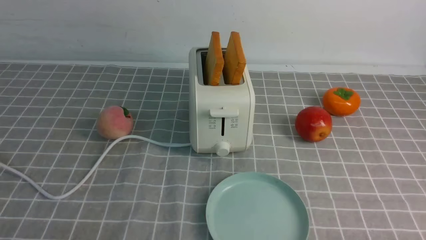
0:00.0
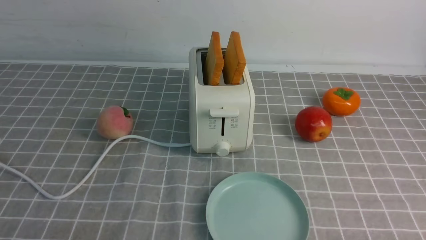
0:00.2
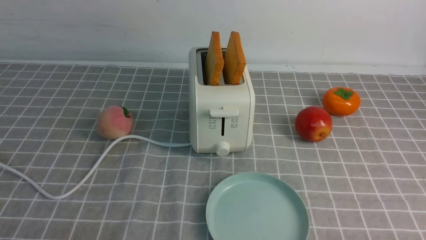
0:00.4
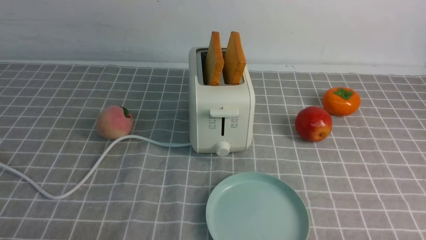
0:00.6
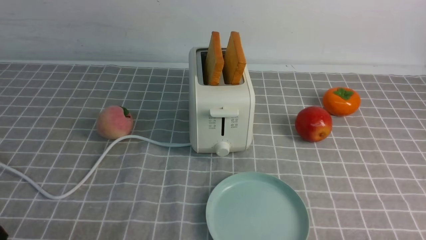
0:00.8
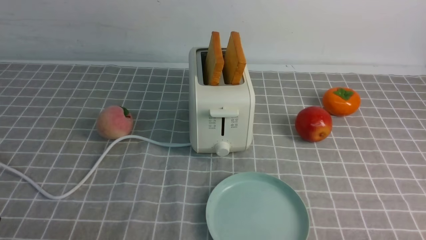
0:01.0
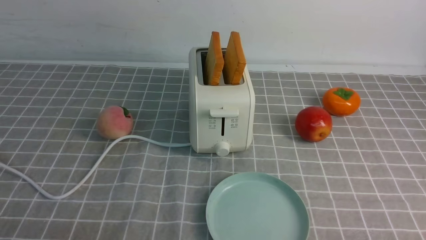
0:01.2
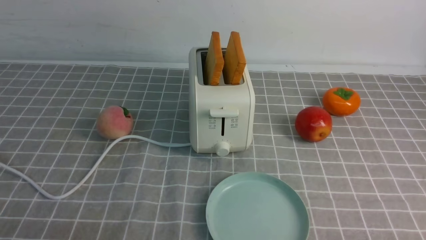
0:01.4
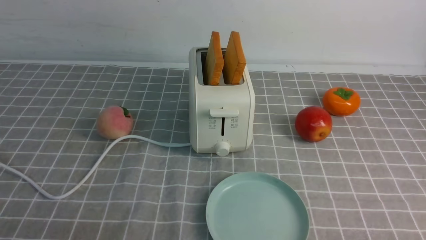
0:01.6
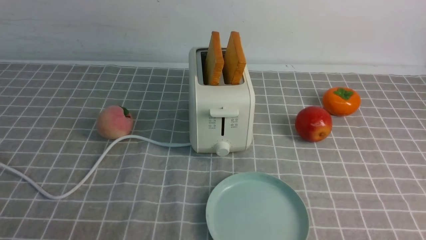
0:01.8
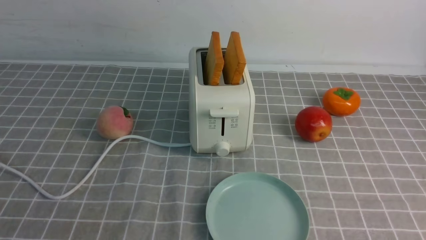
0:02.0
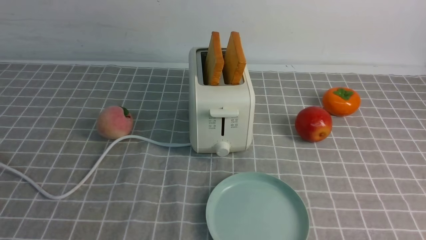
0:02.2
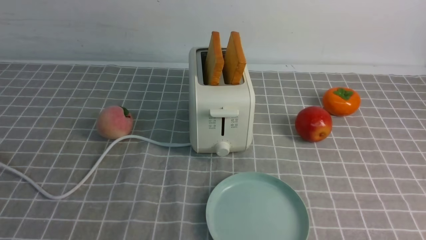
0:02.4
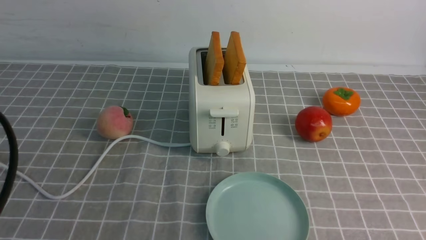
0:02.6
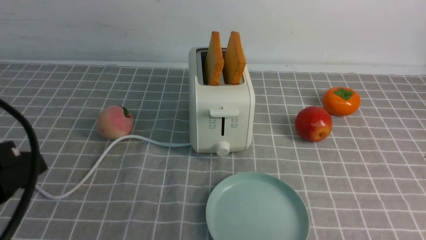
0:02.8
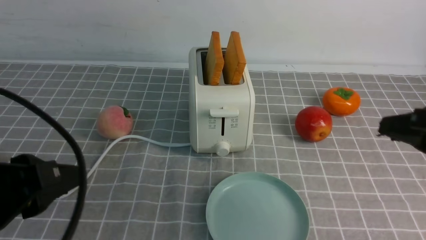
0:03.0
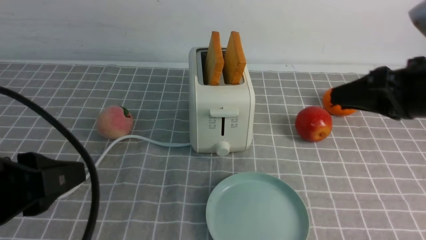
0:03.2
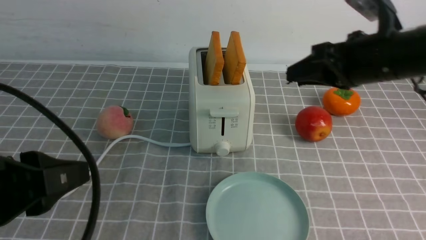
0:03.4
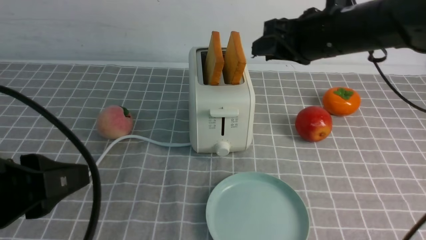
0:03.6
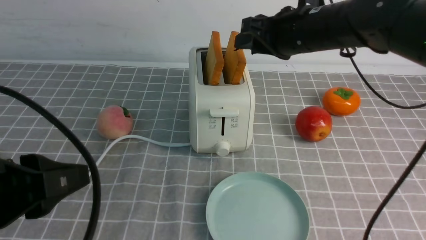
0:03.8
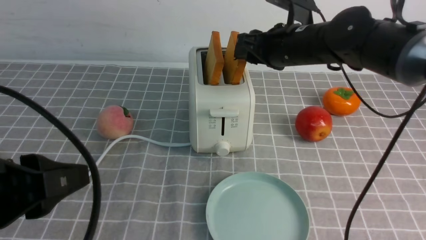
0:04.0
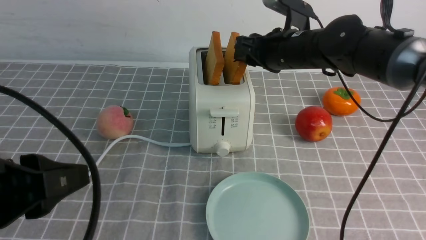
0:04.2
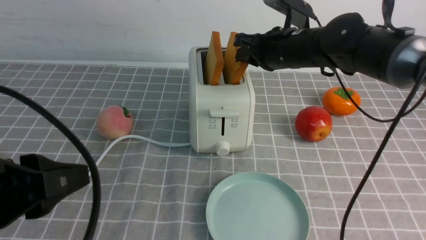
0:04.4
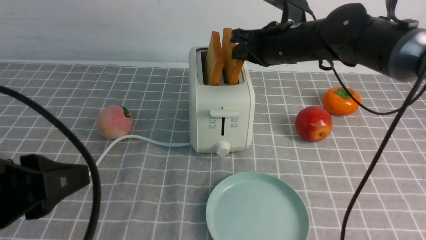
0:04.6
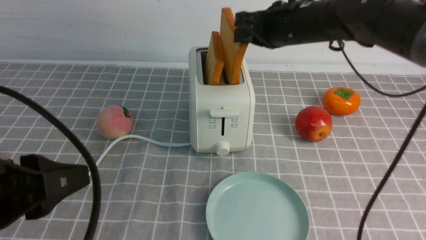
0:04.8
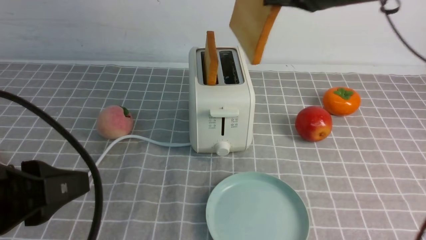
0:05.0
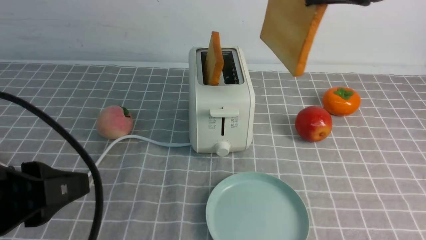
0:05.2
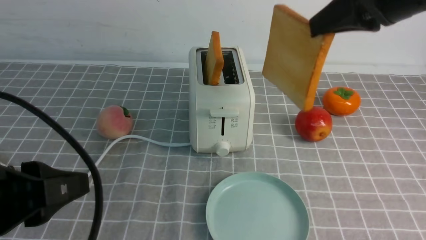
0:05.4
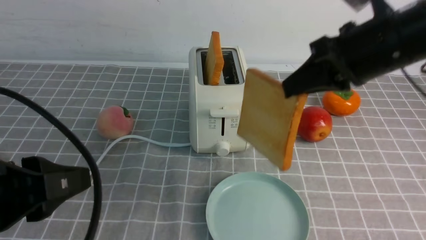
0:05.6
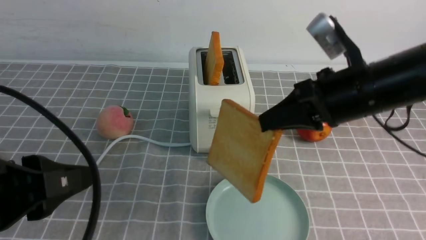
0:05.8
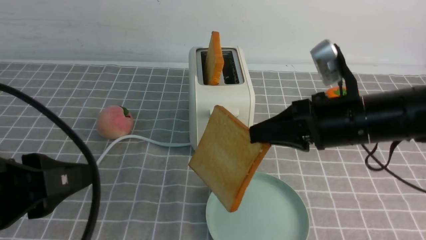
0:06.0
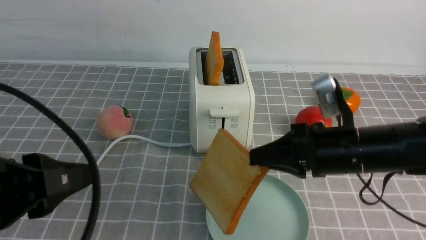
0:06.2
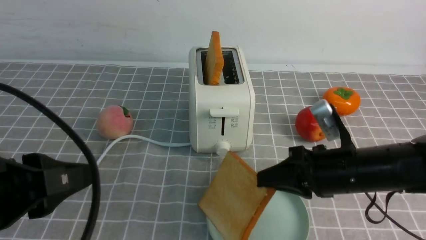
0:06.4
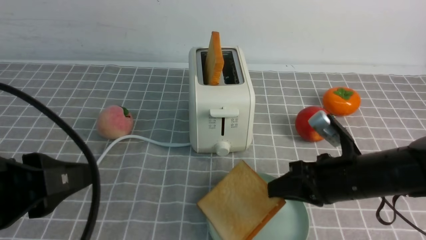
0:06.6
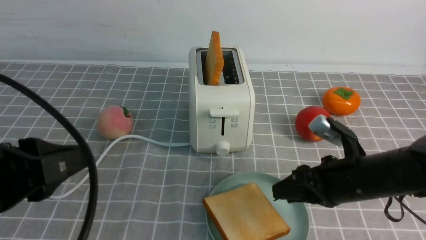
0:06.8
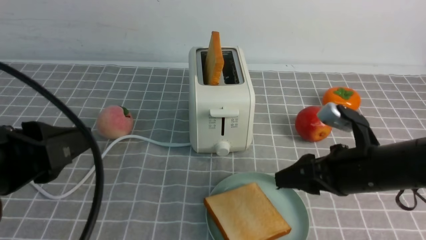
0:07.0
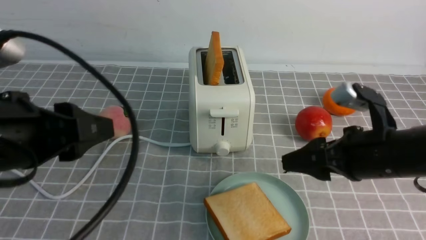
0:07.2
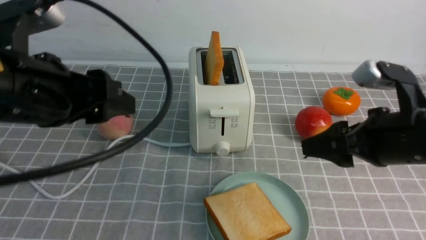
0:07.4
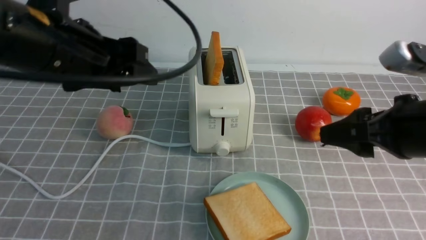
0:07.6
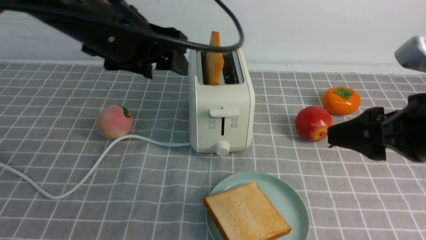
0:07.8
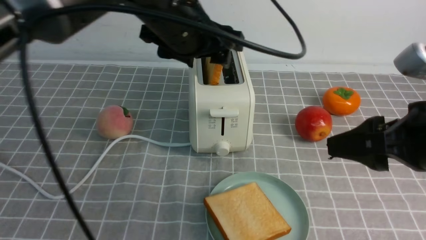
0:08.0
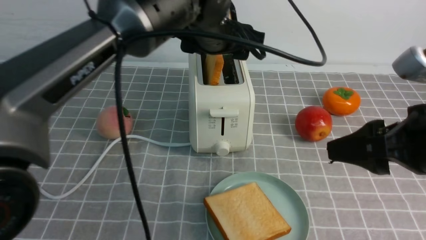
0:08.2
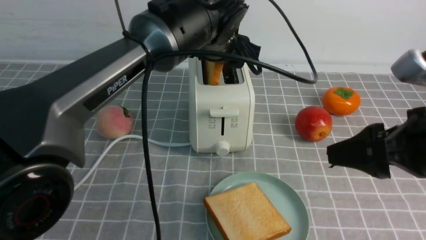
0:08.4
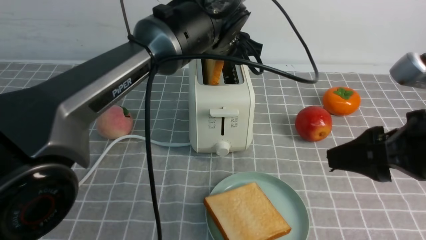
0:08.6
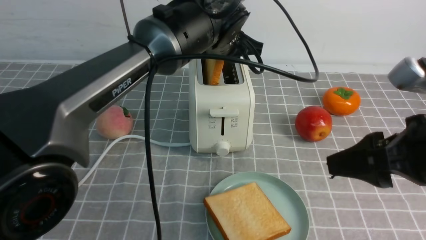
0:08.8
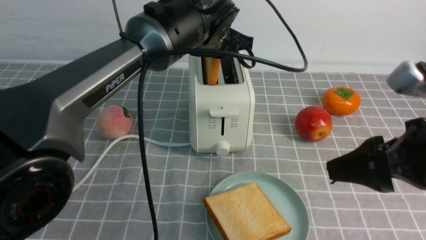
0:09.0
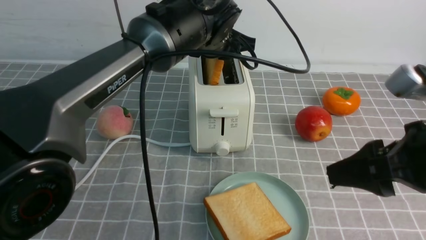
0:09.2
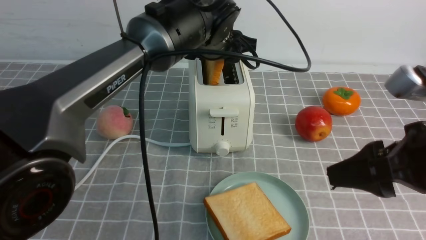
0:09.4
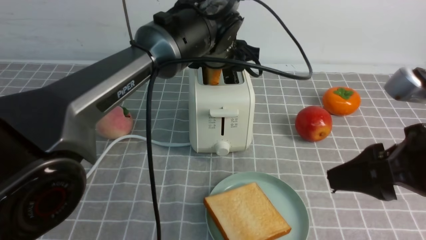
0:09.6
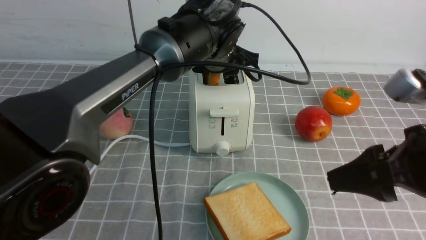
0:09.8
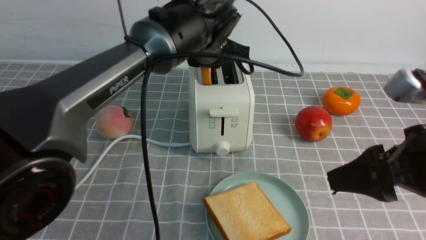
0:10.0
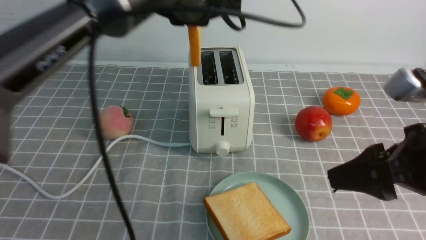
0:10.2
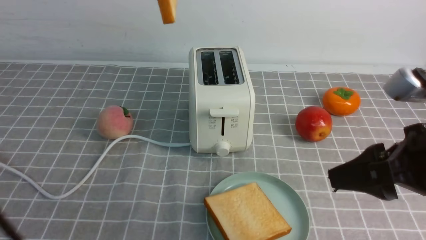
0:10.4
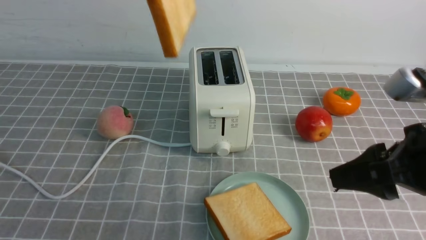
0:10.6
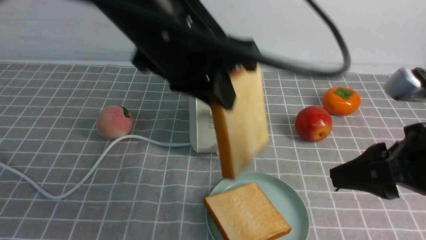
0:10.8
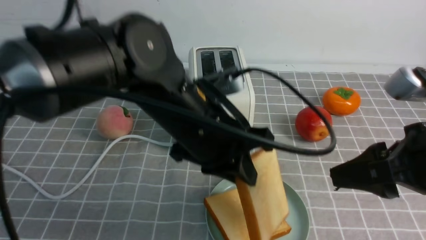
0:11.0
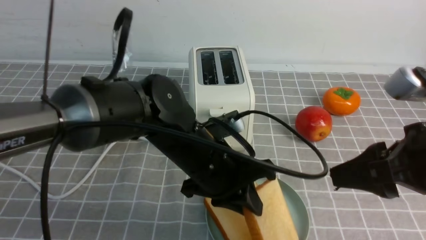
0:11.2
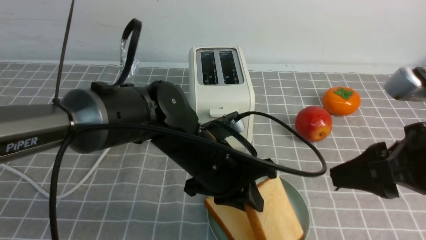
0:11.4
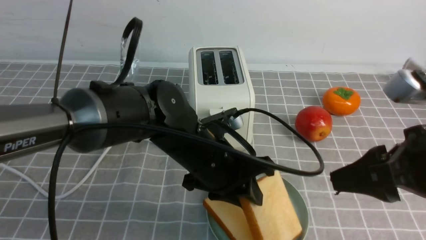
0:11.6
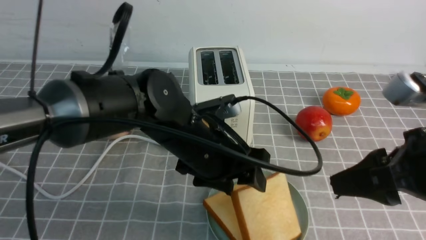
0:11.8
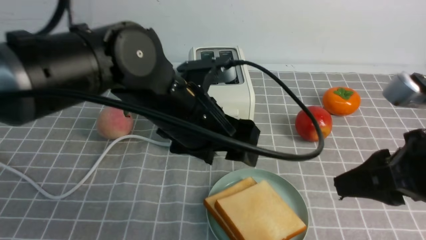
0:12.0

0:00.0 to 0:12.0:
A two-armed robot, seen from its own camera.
Task of the whole recording: take toasted bread from bread machine on grey coffee table place on plate.
Step, 0:00.0 to 0:04.8: use the right arm to take out a slice of bread.
Step, 0:05.0 to 0:07.0: use the right arm to put a slice of bread into the plate.
Step, 0:07.2 to 0:10.0: use the left arm to take out a slice of bread.
0:01.6 to 0:03.0: The left gripper travels upward and forward by roughly 10 cm, while the right gripper moves forward and upward, some 20 cm.
0:03.0 to 0:04.4: The right gripper is displaced forward and to the left by roughly 25 cm.
0:04.4 to 0:06.0: The right gripper heads backward, covering approximately 15 cm, and goes upward and returns, roughly 15 cm each way.
0:06.0 to 0:07.6: The right gripper heads backward and to the right, covering approximately 10 cm, and opens its fingers. The left gripper moves forward and upward, approximately 15 cm, and opens up.
0:07.6 to 0:09.0: The left gripper heads forward and to the right, covering approximately 20 cm, and closes its fingers.
0:09.0 to 0:10.4: The left gripper travels upward, backward and to the left by some 20 cm.
0:10.4 to 0:12.0: The right gripper closes, while the left gripper heads downward, covering about 15 cm, and opens up.

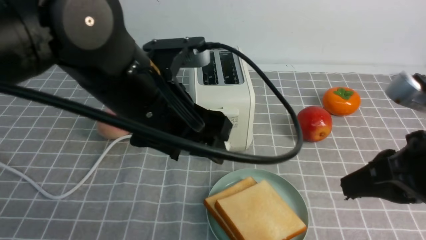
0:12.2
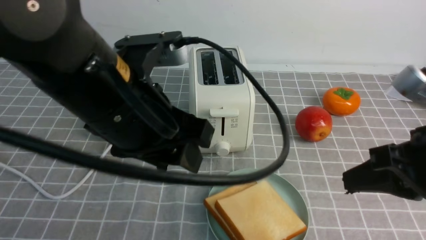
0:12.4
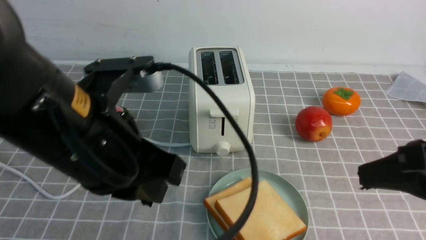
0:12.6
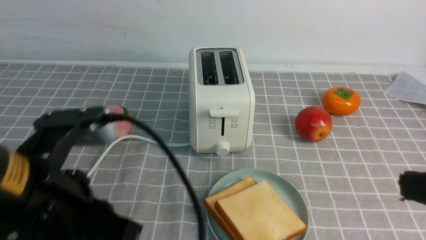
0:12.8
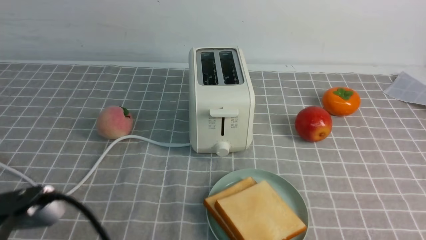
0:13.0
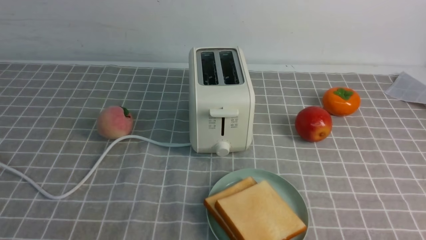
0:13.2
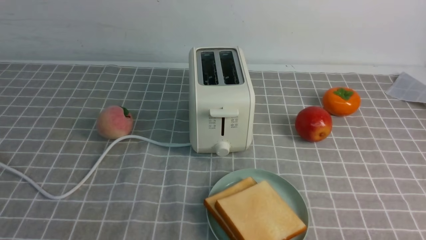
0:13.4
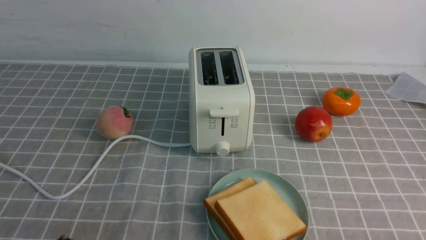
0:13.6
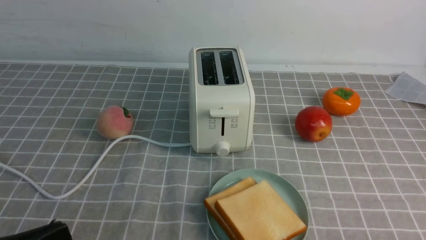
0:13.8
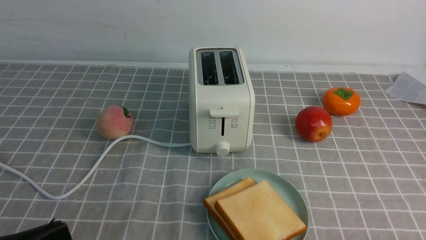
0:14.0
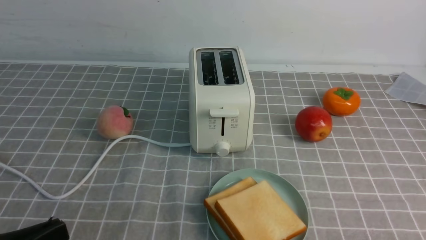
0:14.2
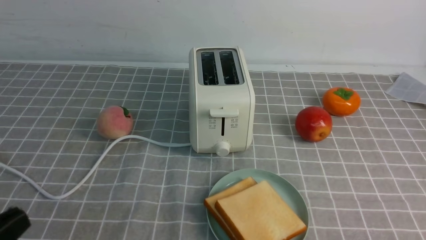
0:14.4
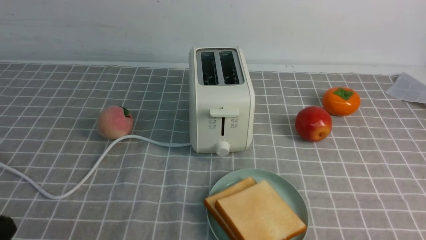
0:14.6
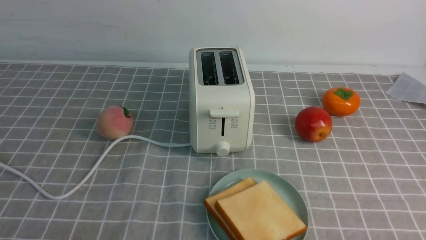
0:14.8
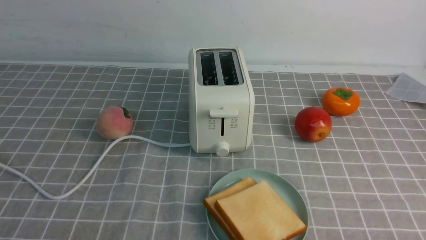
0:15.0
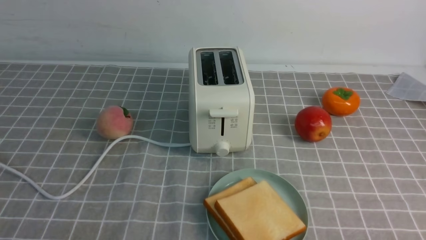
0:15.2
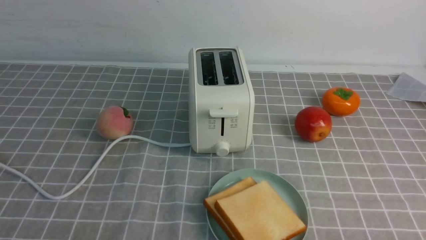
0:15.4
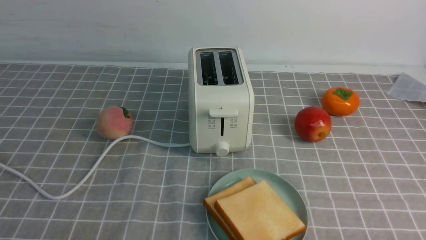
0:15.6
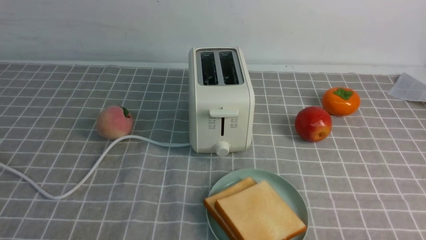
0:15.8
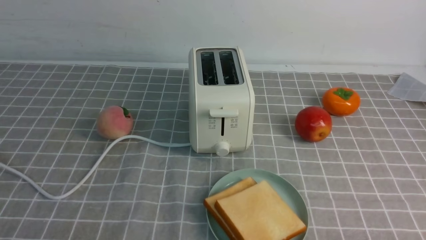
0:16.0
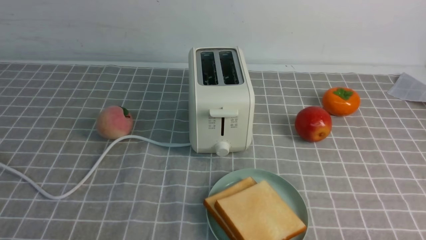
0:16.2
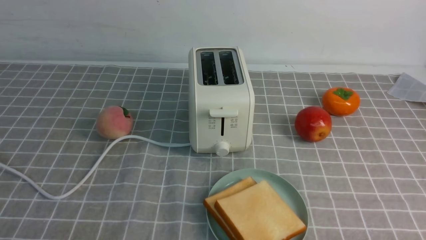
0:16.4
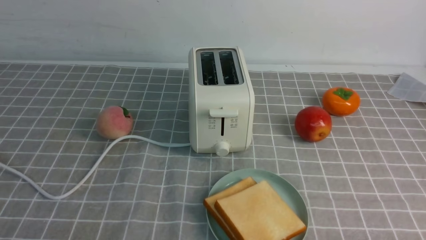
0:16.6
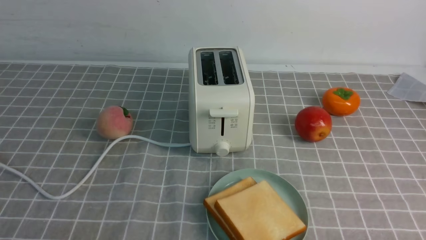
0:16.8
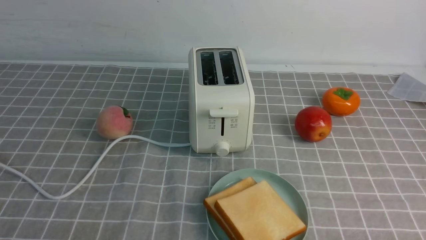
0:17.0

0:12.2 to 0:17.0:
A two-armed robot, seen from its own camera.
Task of the whole recording: take toasted bread from bread machine on grey coffee table place on plate.
0:12.2 to 0:13.8: The left gripper moves backward and to the left, approximately 25 cm, and closes up. The right gripper goes about 15 cm backward and downward.
0:13.8 to 0:15.4: The left gripper heads downward, covering about 10 cm.
